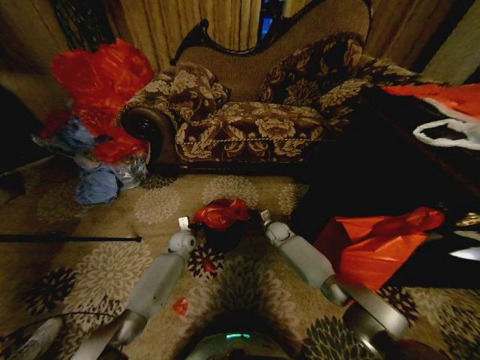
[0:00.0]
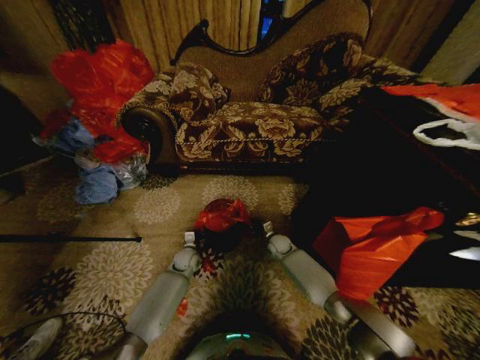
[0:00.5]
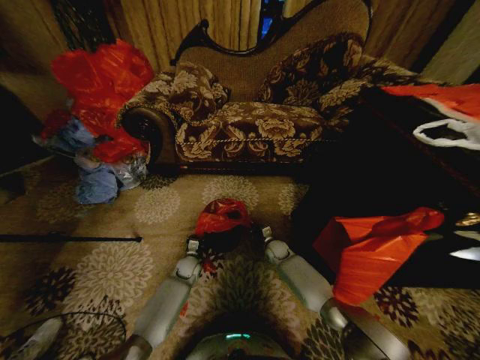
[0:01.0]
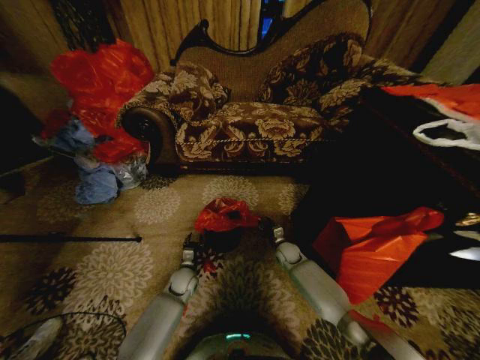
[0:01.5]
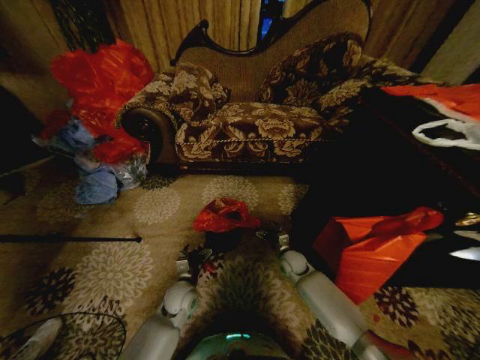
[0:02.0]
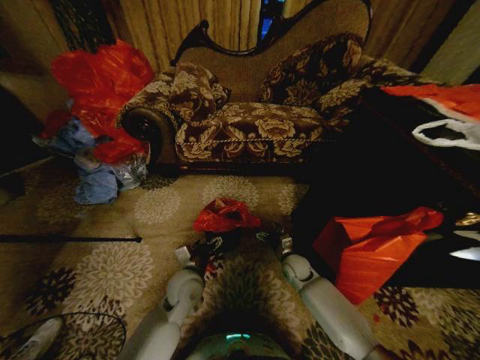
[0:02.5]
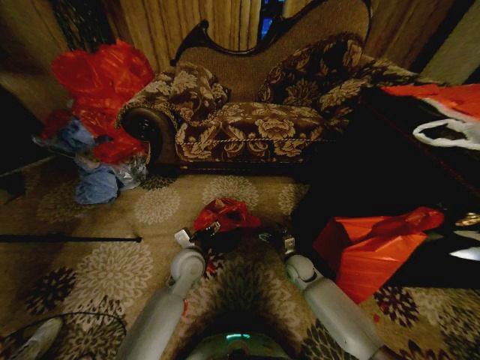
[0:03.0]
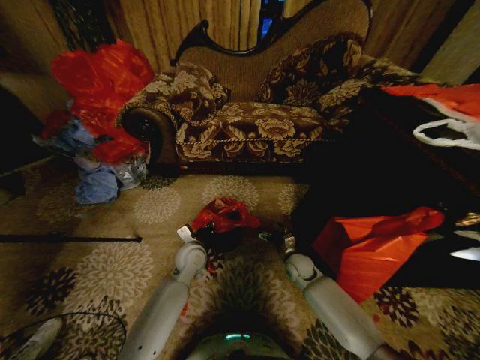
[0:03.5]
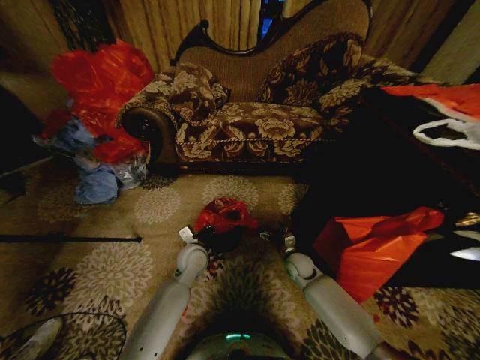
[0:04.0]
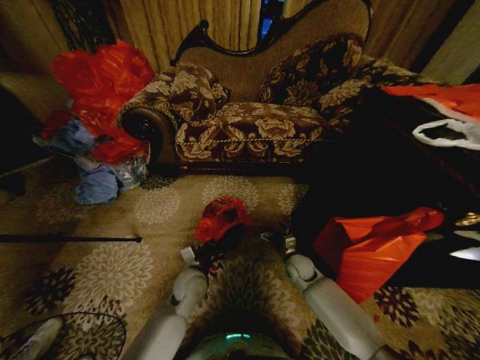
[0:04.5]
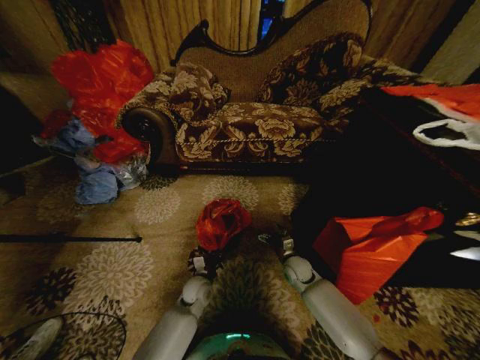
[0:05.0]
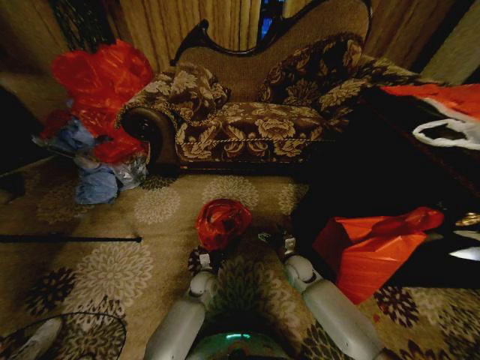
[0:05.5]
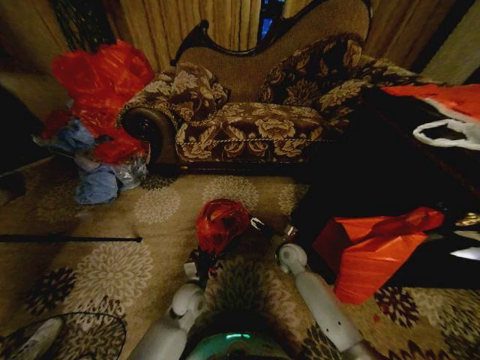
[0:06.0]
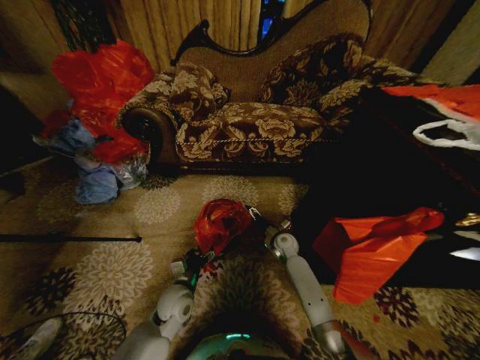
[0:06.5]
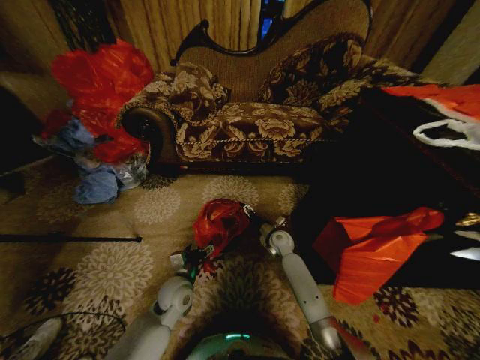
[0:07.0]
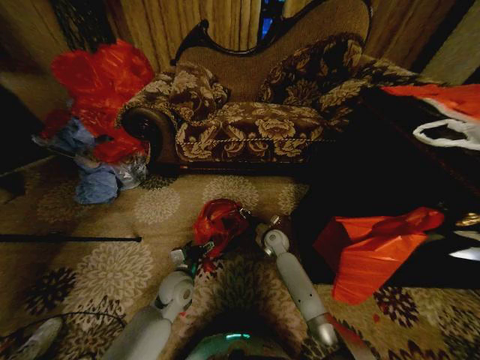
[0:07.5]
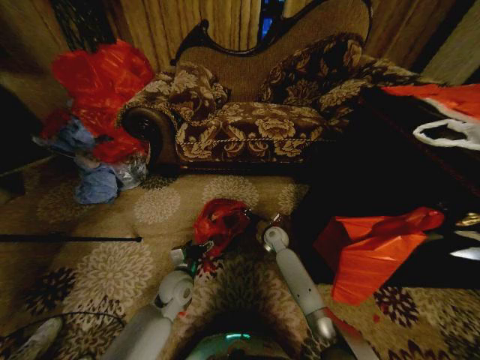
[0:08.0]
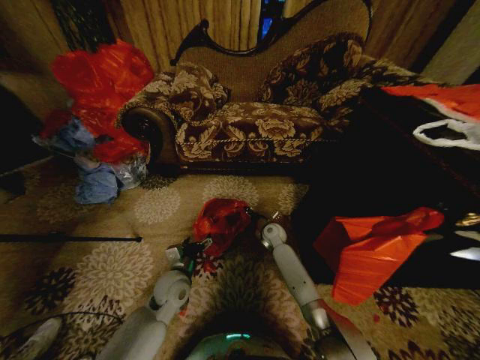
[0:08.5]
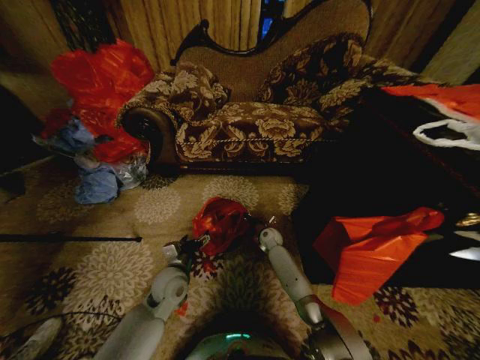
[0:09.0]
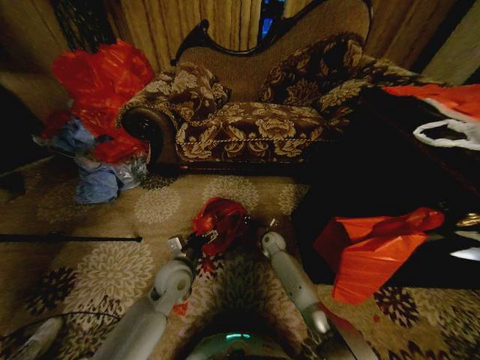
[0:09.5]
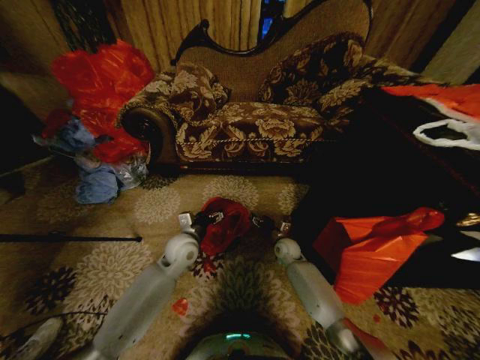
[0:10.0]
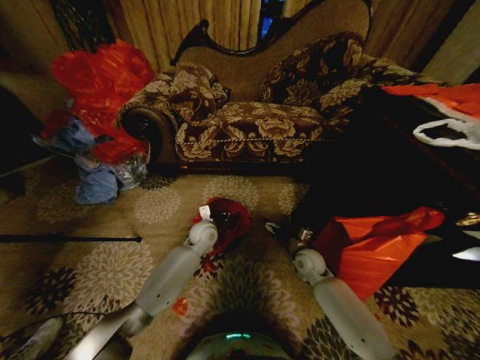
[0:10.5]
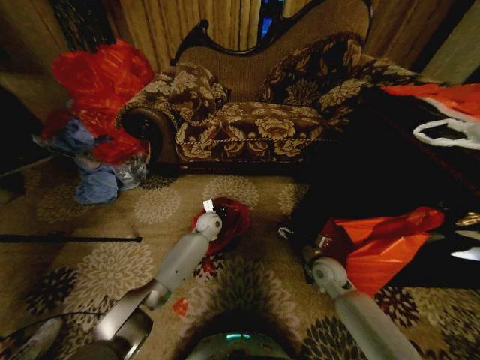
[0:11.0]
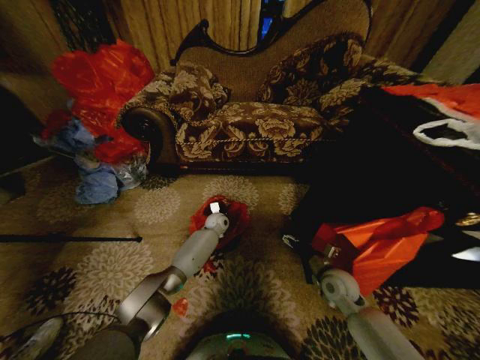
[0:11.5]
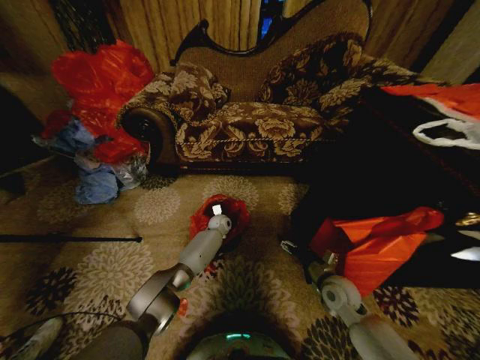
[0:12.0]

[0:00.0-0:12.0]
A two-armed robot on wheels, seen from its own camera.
Task of the whole recording: Place a garbage bag over the trash bin.
0:00.0 to 0:02.0: The left gripper moves backward, roughly 20 cm, and opens, while the right gripper moves backward, approximately 10 cm, and opens its fingers.
0:02.0 to 0:04.0: The left gripper shifts about 15 cm upward and forward, and closes its fingers.
0:04.0 to 0:06.0: The left gripper moves downward and backward, approximately 15 cm, while the right gripper ends up roughly 5 cm from where it was.
0:06.0 to 0:08.0: The left gripper travels upward by about 5 cm, and opens its fingers, while the right gripper shifts some 5 cm forward, and closes.
0:08.0 to 0:10.0: The left gripper shifts approximately 10 cm upward and forward; the right gripper moves approximately 5 cm, and opens its fingers.
0:10.0 to 0:12.0: The right gripper is displaced backward and to the right by about 20 cm; the left gripper goes roughly 25 cm forward, downward and to the right, and closes.

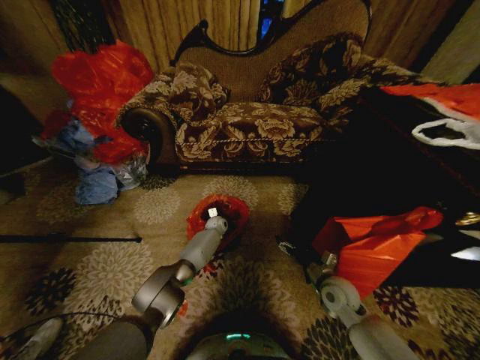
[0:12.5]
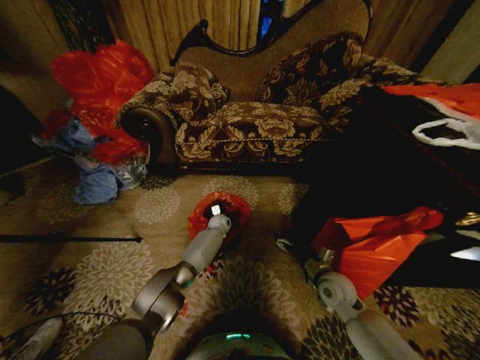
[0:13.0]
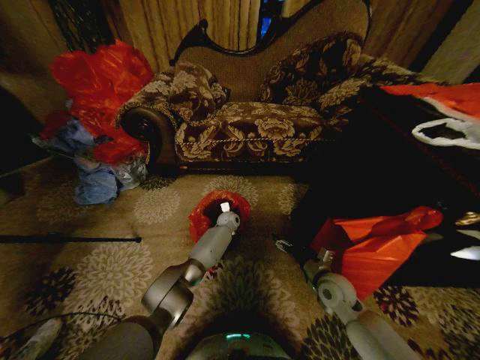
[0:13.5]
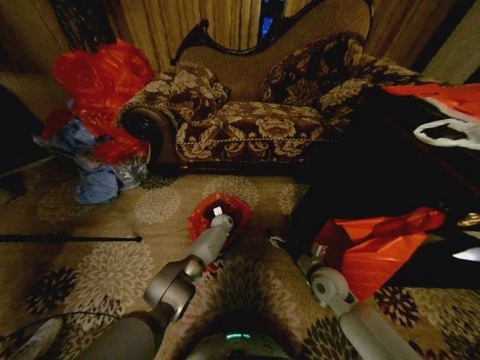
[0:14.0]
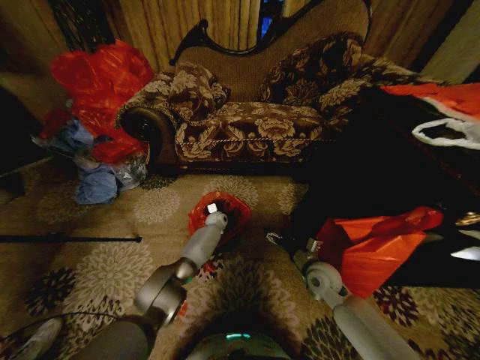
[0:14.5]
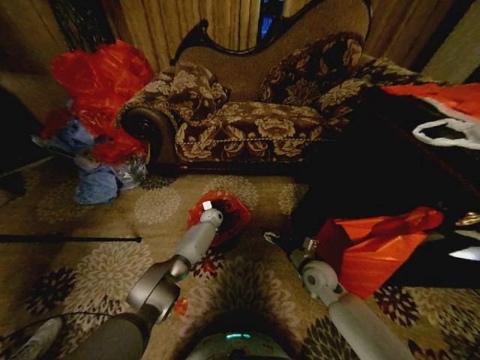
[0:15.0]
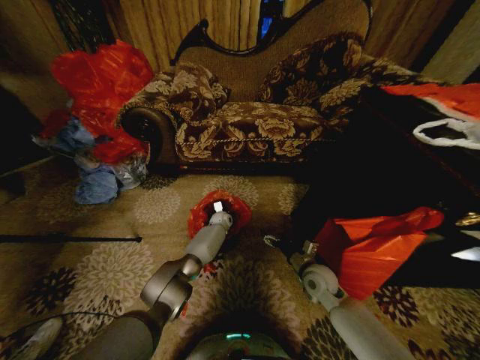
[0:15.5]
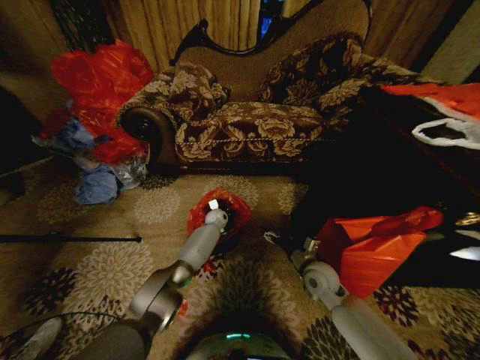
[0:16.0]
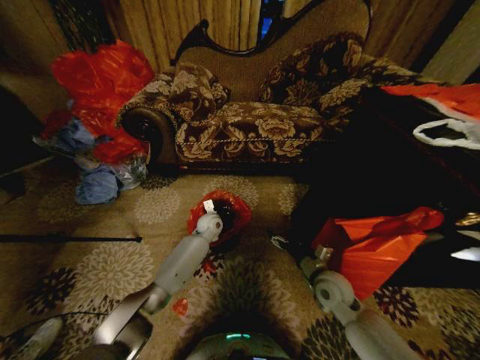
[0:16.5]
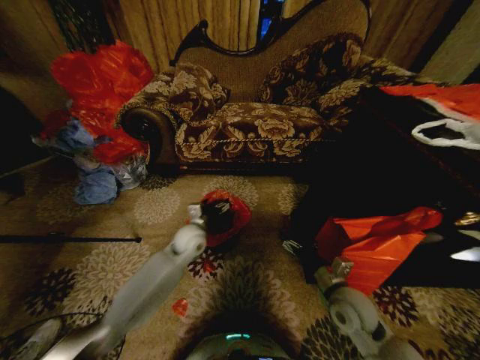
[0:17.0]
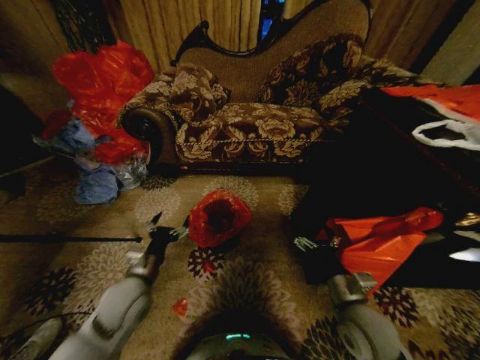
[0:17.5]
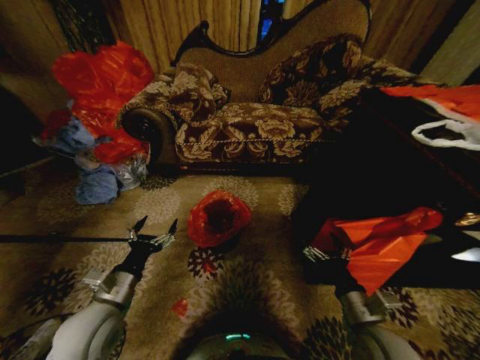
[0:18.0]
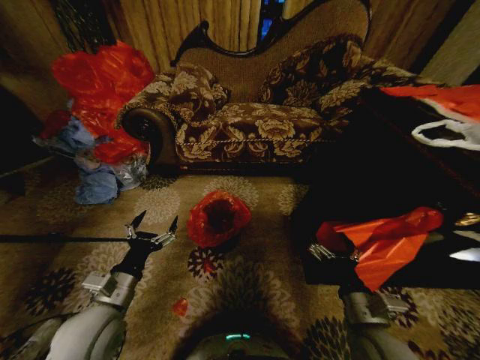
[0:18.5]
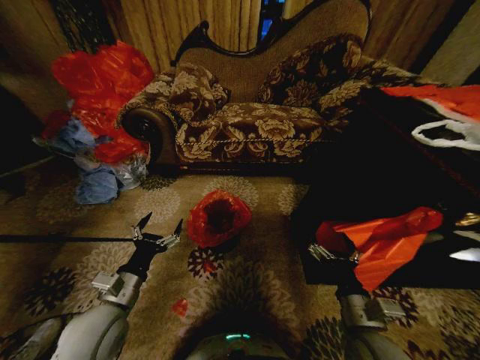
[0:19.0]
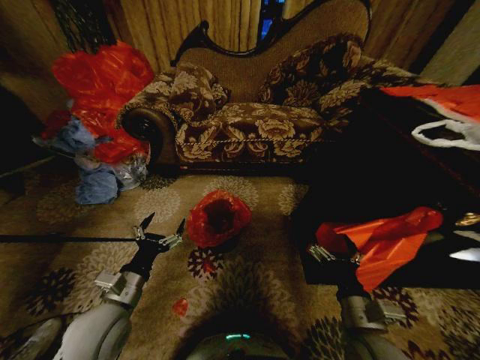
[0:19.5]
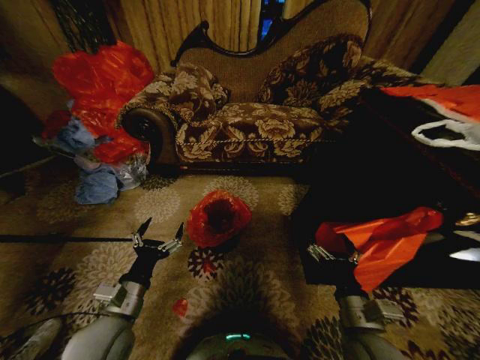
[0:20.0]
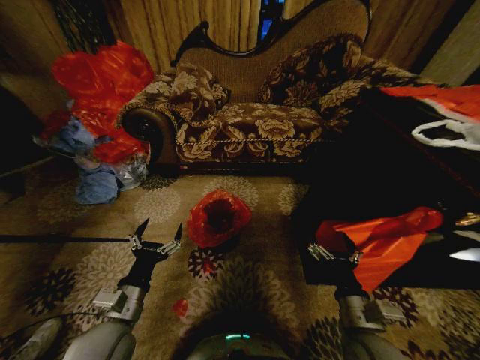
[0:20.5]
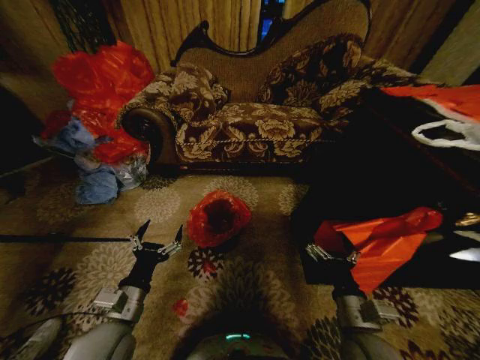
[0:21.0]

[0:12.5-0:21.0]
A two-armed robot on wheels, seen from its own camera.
Task of the whole recording: Place a garbage bag over the trash bin.
0:12.5 to 0:14.5: The right gripper ends up approximately 5 cm from where it was.
0:14.5 to 0:16.5: The left gripper heads backward and upward, covering roughly 10 cm, and opens up.
0:16.5 to 0:19.0: The right gripper is displaced backward and upward by roughly 15 cm; the left gripper is displaced backward and to the left by approximately 35 cm, and opens its fingers.
0:19.0 to 0:21.0: There are only small adjustments of the grippers.

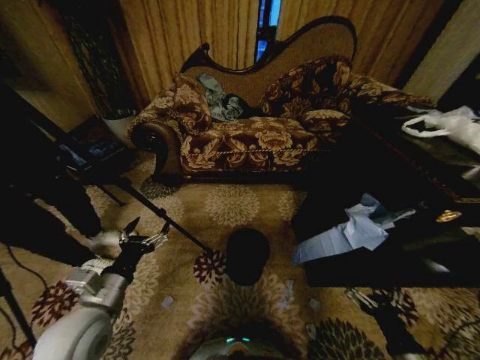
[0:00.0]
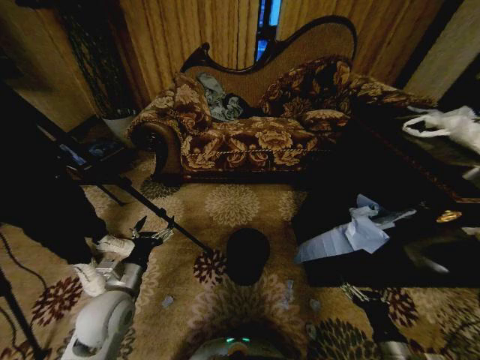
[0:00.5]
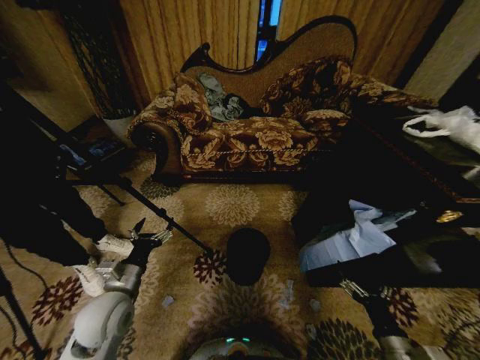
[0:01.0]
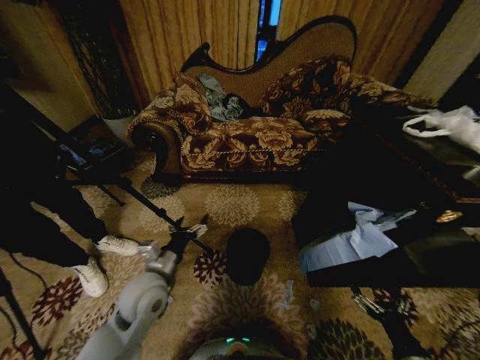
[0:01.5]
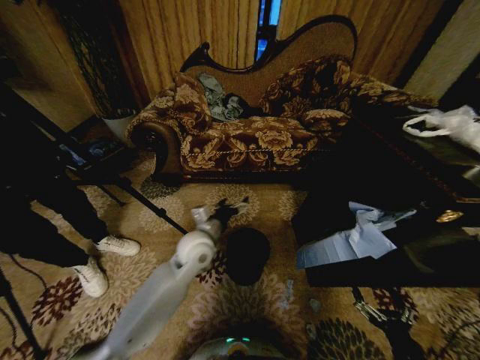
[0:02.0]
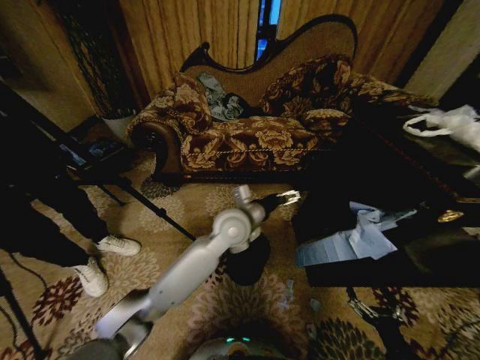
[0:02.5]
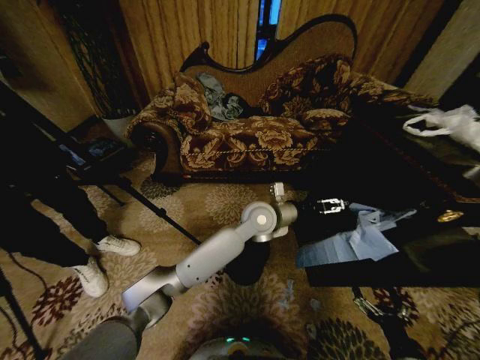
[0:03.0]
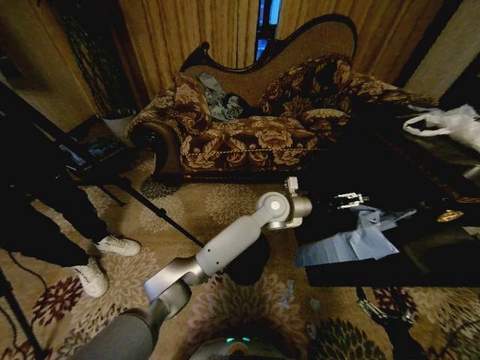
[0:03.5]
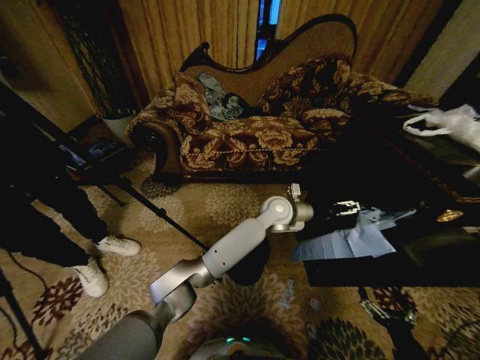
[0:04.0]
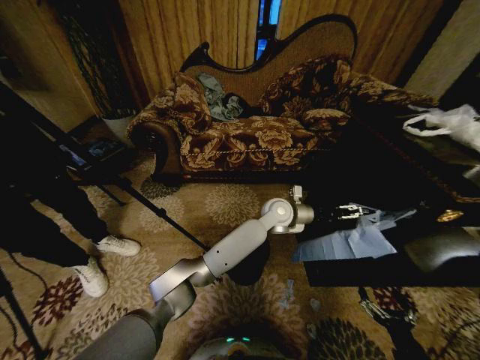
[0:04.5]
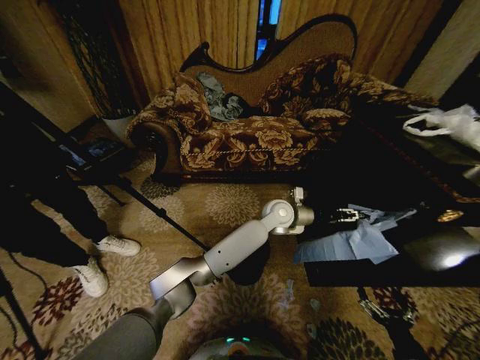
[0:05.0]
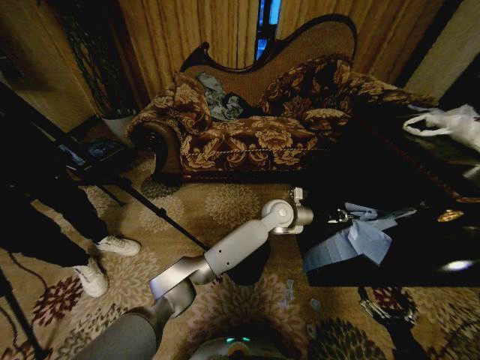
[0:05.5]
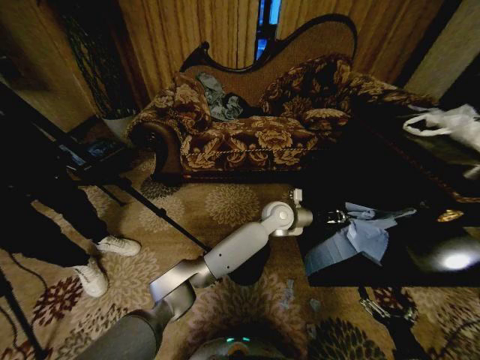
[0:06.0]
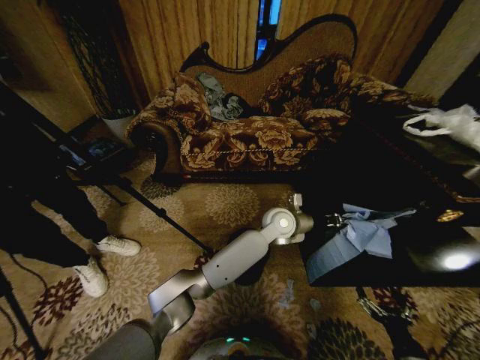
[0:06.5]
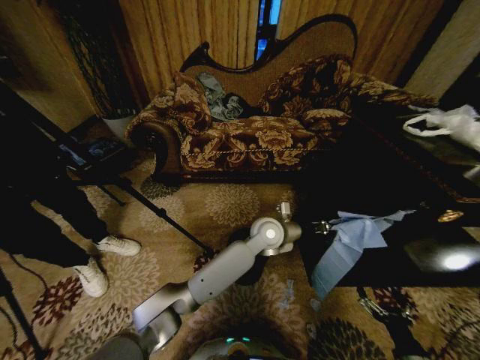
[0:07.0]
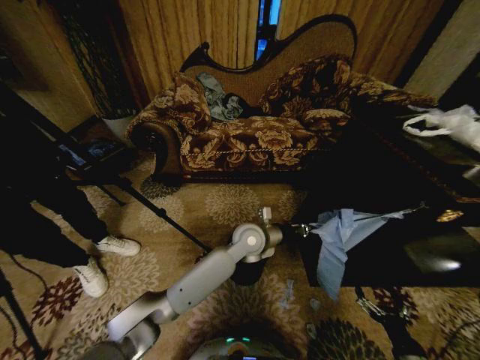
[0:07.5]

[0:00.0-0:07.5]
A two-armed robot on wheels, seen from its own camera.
Task of the whole recording: Place a garbage bag over the trash bin.
0:02.0 to 0:04.0: The left gripper goes some 25 cm to the right and forward.
0:04.0 to 0:05.5: The left gripper closes.
0:05.5 to 0:07.5: The left gripper travels to the left and backward by about 10 cm.
